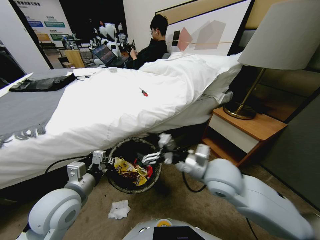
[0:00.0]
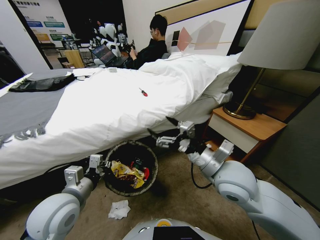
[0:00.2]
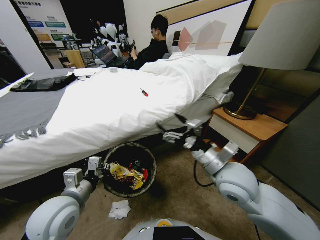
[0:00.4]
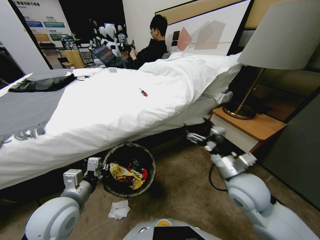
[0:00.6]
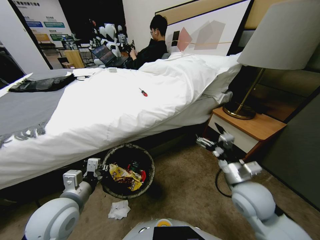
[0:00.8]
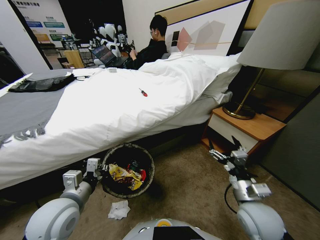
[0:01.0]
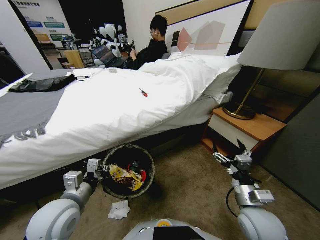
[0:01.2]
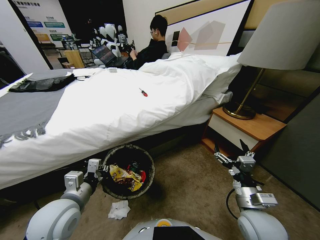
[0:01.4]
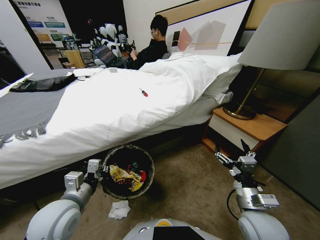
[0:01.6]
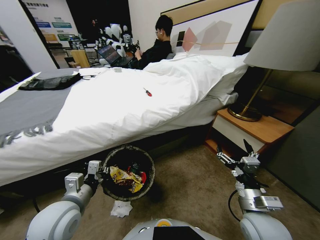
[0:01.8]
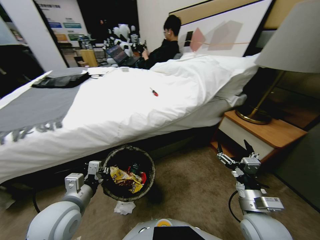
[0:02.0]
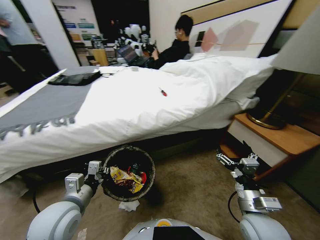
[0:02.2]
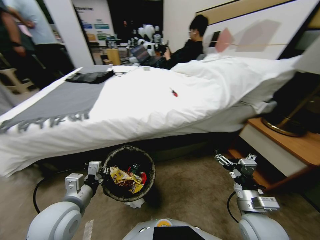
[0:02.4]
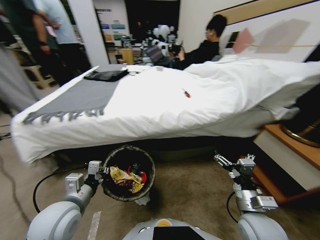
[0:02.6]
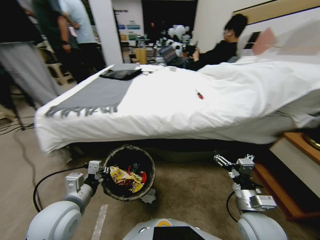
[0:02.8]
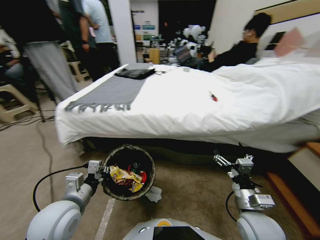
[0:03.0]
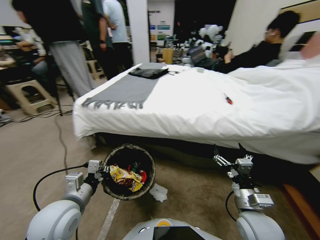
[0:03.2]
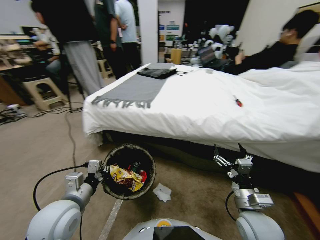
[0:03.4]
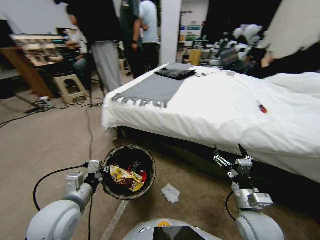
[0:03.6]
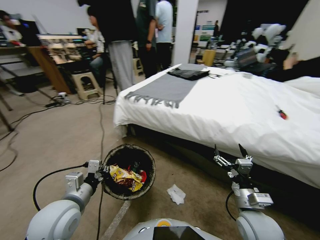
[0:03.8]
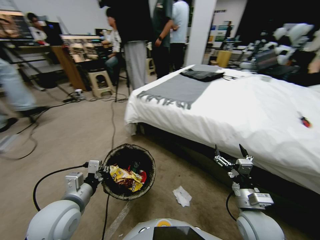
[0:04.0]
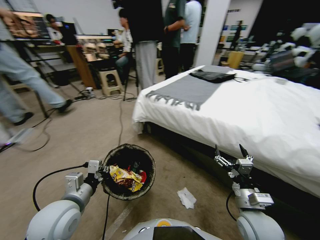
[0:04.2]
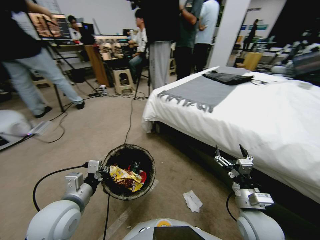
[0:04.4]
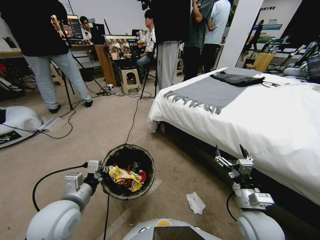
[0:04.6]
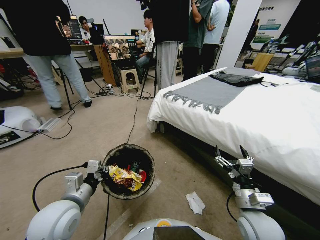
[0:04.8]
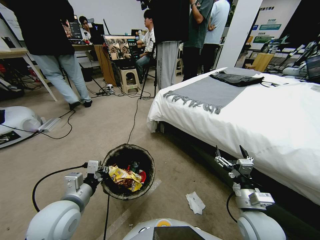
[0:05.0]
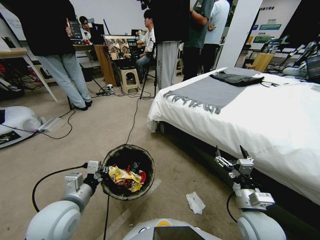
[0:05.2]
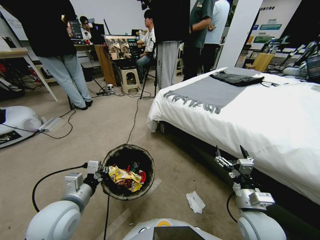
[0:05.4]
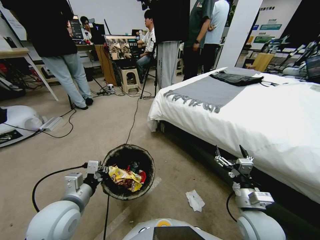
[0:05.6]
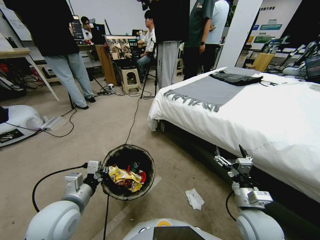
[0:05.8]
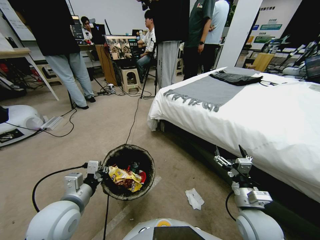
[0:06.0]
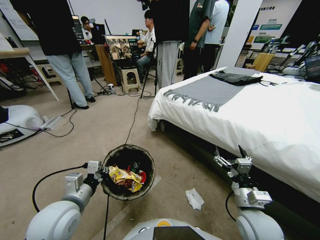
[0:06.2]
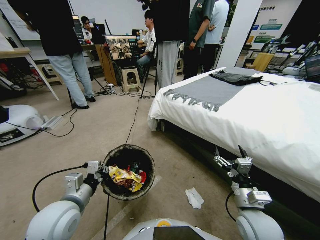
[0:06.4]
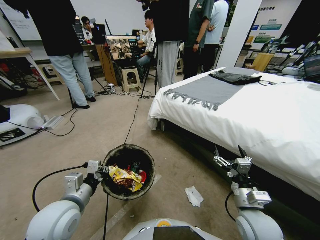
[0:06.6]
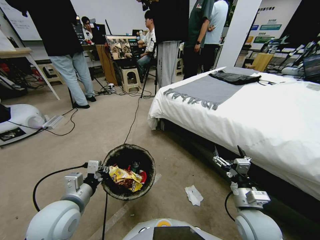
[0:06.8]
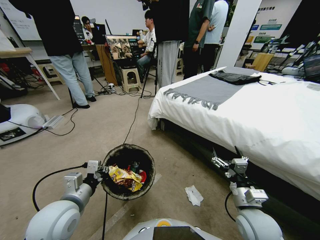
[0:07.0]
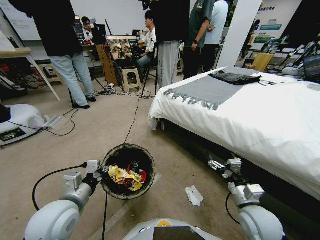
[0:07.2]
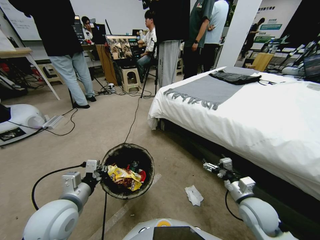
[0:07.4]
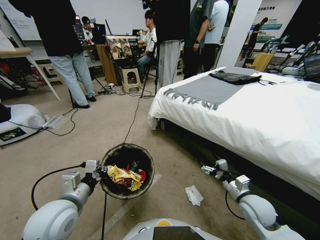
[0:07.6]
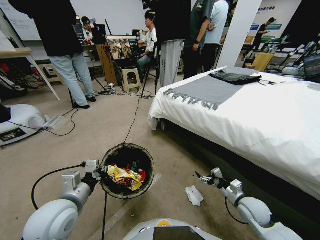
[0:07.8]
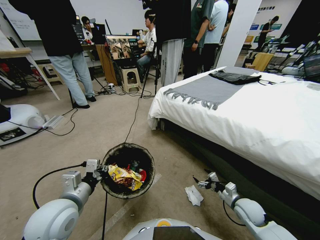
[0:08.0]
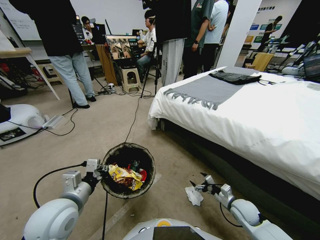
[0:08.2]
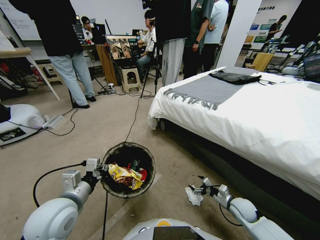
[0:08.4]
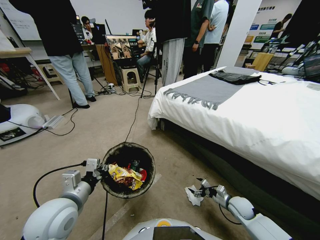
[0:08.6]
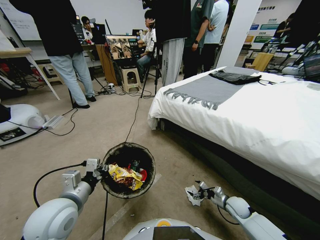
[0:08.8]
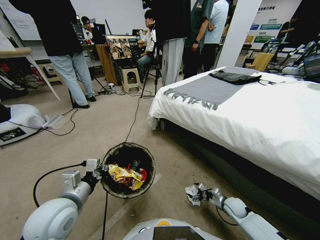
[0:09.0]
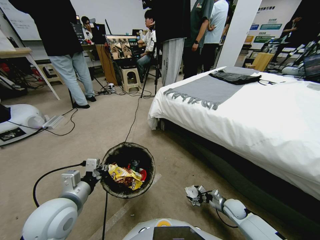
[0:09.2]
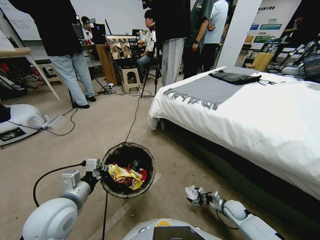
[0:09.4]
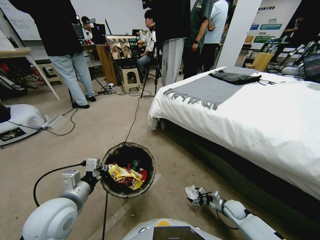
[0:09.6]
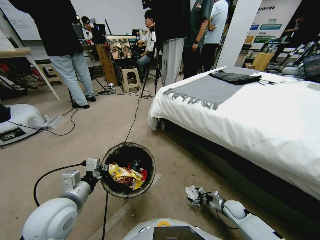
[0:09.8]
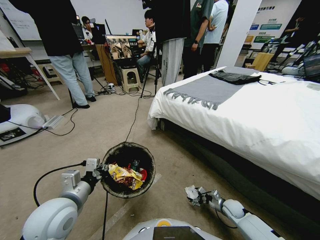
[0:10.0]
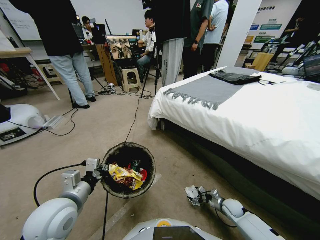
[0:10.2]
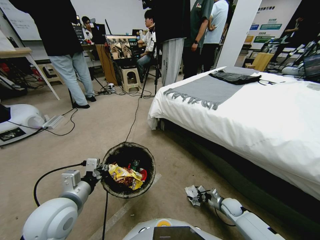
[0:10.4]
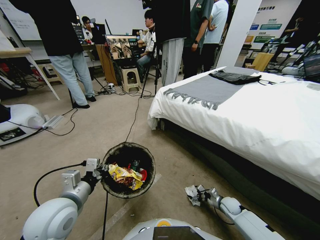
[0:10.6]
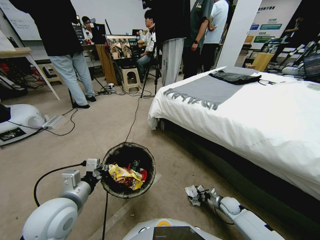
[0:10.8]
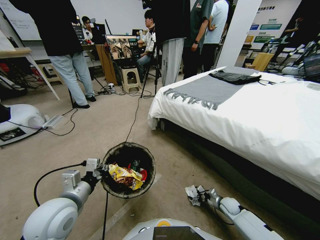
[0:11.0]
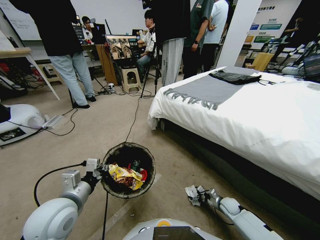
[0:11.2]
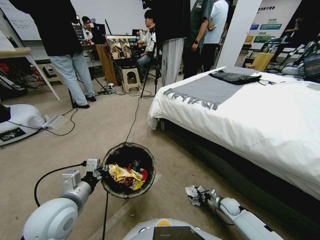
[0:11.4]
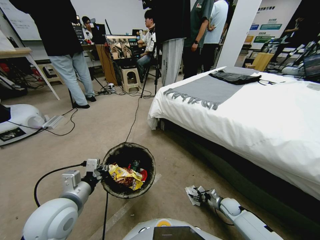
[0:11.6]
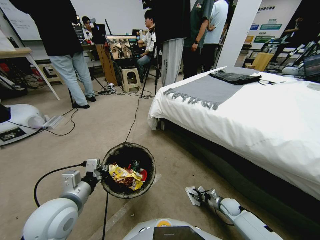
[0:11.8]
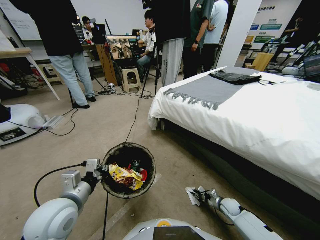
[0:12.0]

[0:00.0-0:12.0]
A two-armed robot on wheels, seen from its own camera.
Task of the whole recording: Pick up the trash bin, then pick up the garbage from the floor and place it into the trash bin.
0:00.0 to 0:01.6: The right gripper heads downward, backward and to the right, covering about 15 cm.
0:06.0 to 0:07.6: The right gripper moves downward, to the right and forward, roughly 15 cm.
0:07.6 to 0:09.0: The right gripper moves downward, some 15 cm.
0:09.0 to 0:10.4: The grippers stay close to where they were, moving slightly.
0:10.4 to 0:12.0: The right gripper closes up.

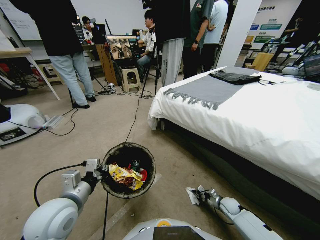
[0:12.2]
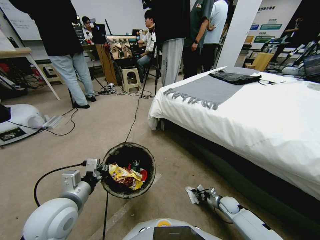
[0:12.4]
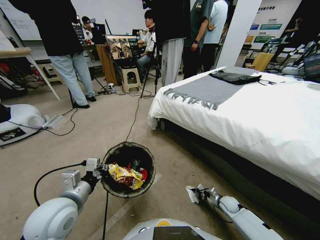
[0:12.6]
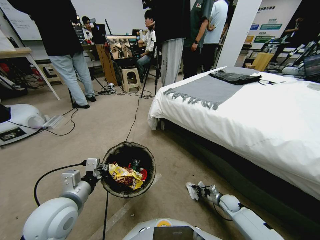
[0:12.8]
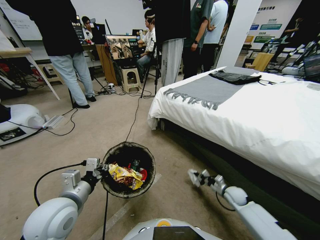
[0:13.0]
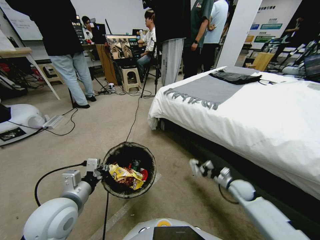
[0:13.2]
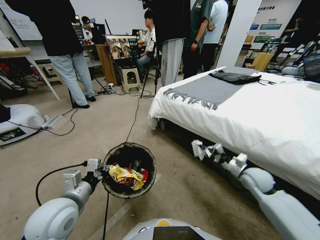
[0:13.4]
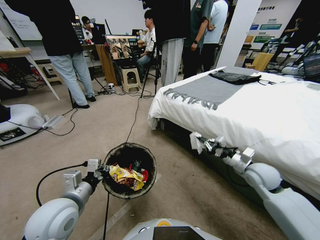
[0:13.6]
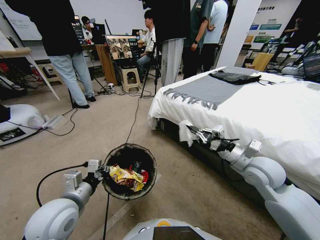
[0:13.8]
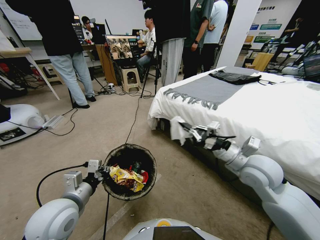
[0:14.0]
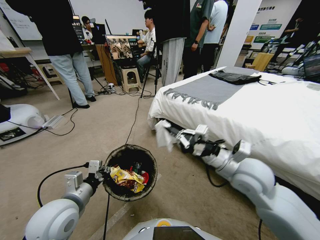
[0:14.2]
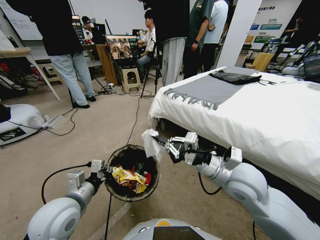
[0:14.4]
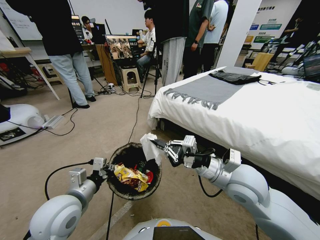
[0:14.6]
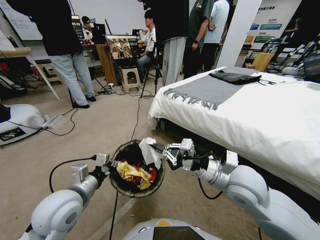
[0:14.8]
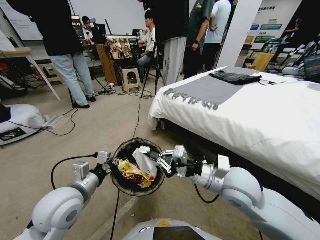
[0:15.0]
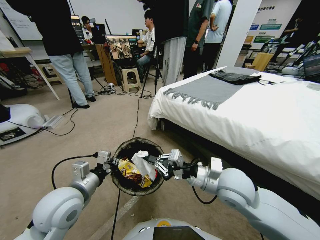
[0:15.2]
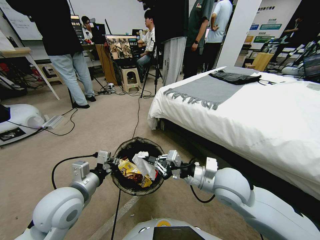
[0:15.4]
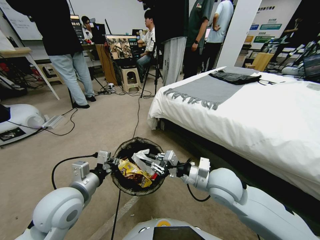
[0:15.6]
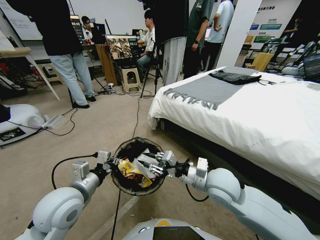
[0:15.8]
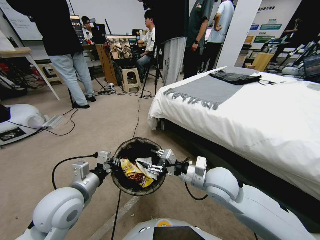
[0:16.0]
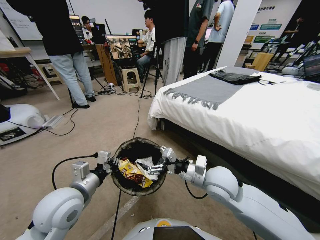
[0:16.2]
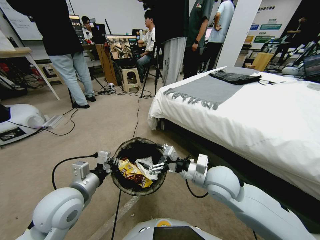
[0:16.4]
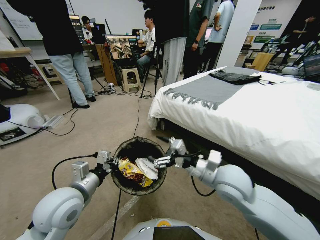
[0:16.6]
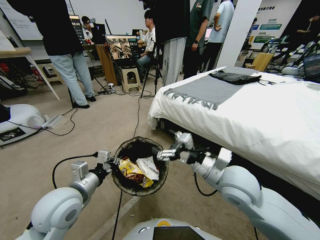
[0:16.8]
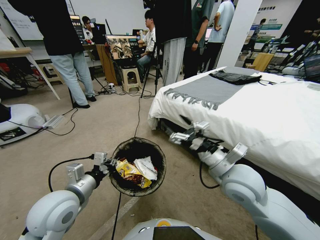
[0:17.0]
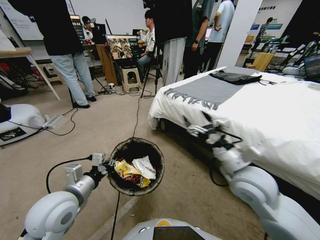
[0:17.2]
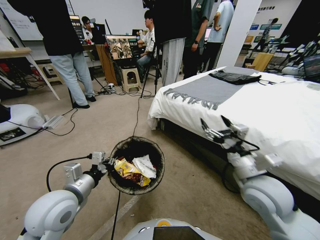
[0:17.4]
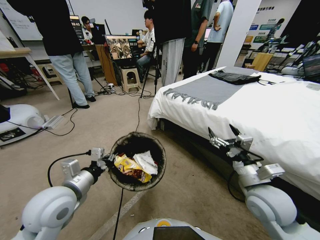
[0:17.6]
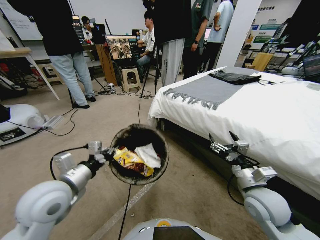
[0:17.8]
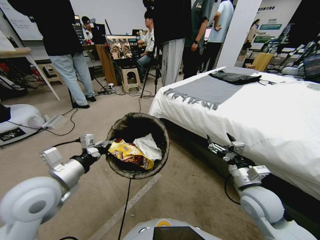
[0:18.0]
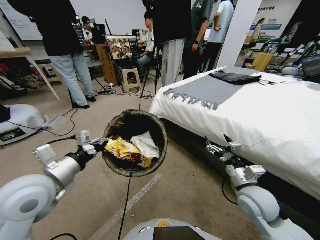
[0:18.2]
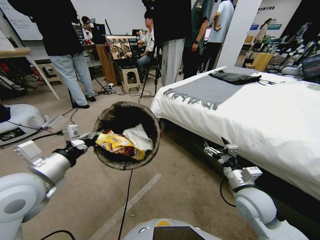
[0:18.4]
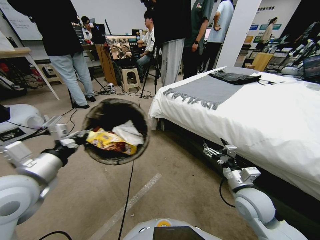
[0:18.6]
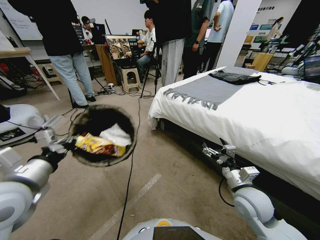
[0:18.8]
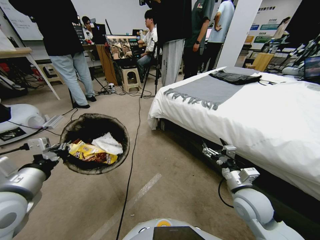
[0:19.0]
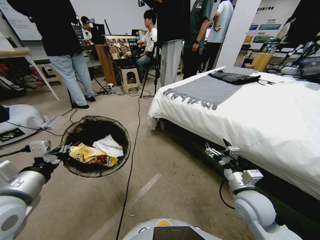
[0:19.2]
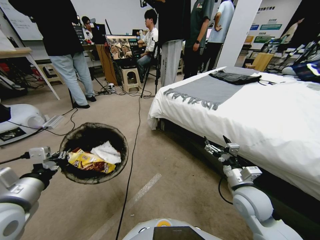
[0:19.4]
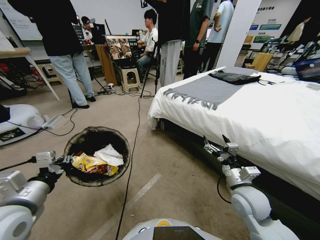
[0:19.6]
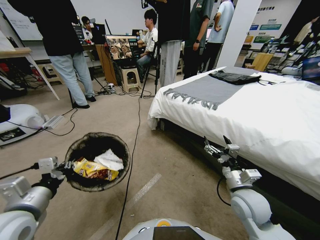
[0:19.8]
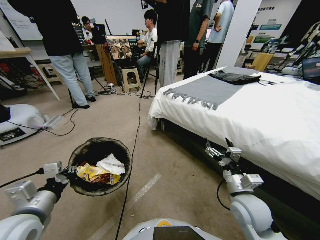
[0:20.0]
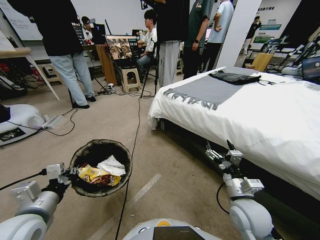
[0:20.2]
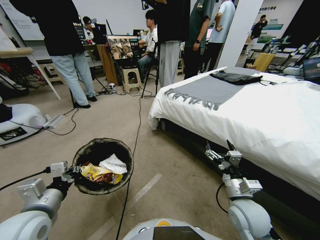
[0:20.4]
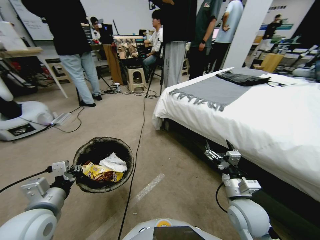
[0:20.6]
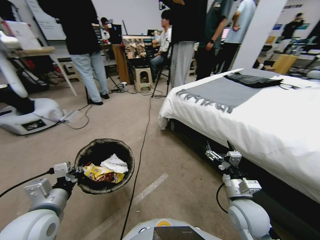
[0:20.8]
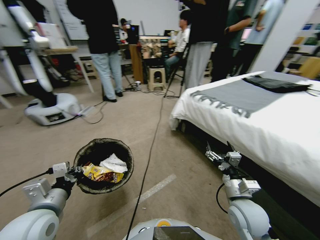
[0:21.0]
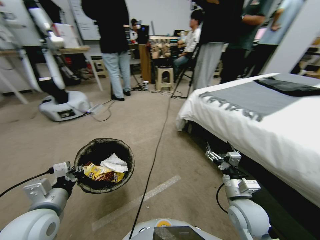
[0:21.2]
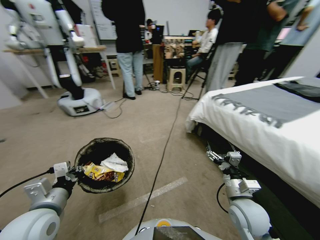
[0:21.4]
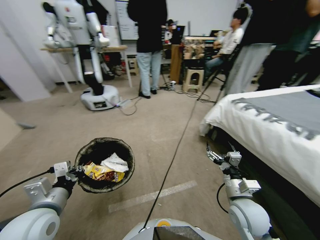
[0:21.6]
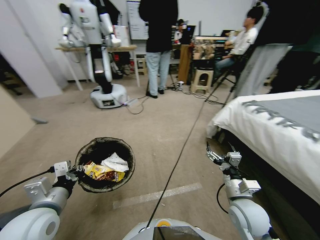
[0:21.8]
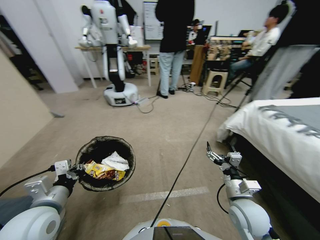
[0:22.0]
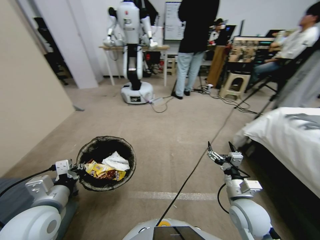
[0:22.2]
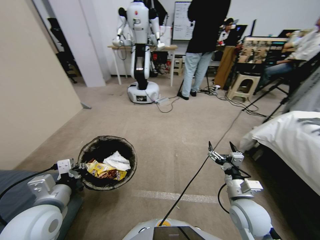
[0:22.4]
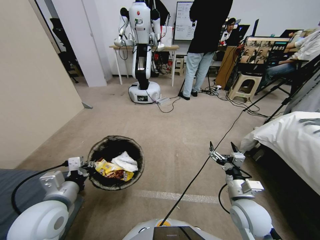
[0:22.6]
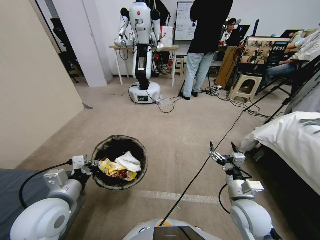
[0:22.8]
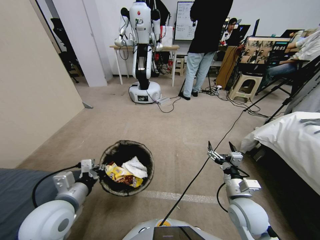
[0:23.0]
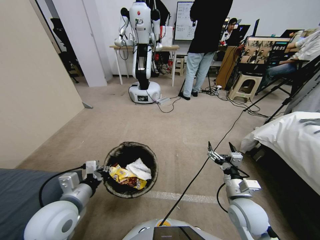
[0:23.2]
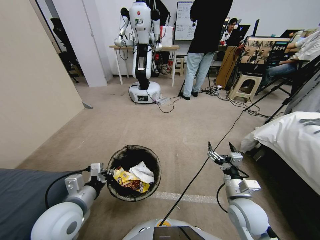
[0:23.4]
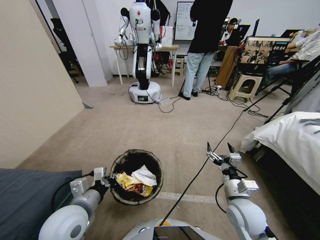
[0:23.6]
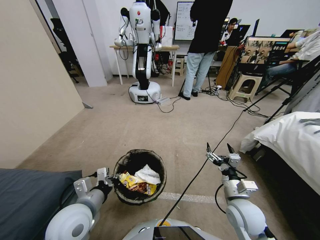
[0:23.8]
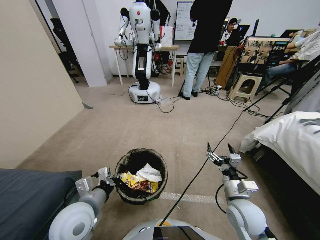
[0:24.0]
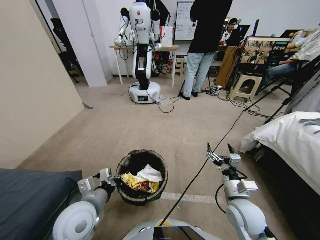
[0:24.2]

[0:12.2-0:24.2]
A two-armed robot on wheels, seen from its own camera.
Task of the whole recording: Pick up the trash bin, then pick up the garbage from the floor and place it into the trash bin.
0:12.2 to 0:13.8: The right gripper moves upward, about 40 cm.
0:13.8 to 0:15.2: The right gripper goes some 10 cm to the left.
0:15.2 to 0:16.6: The right gripper opens up.
0:16.6 to 0:18.2: The left gripper shifts roughly 5 cm upward, while the right gripper heads to the right and downward, covering roughly 15 cm.
0:18.2 to 0:19.8: The left gripper goes some 10 cm backward and downward.
0:22.6 to 0:24.2: The left gripper travels to the right by some 5 cm.
